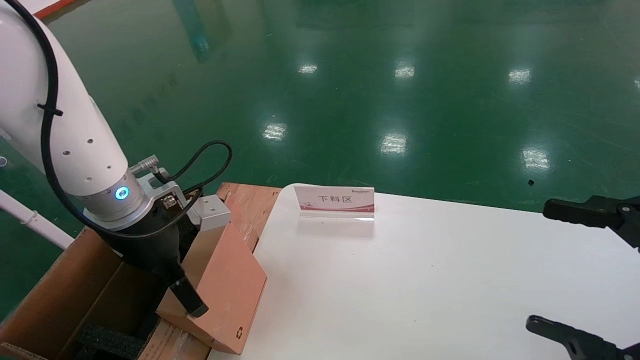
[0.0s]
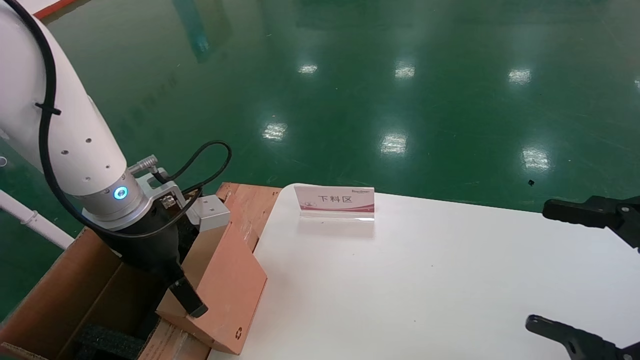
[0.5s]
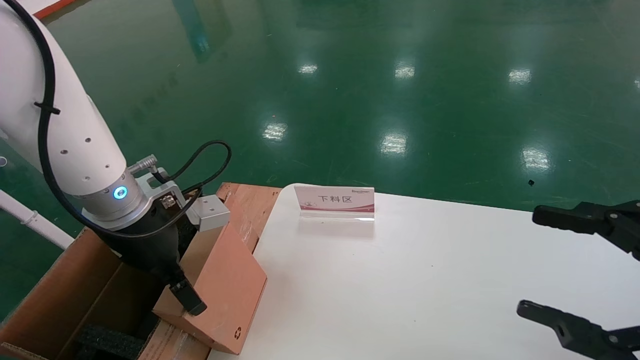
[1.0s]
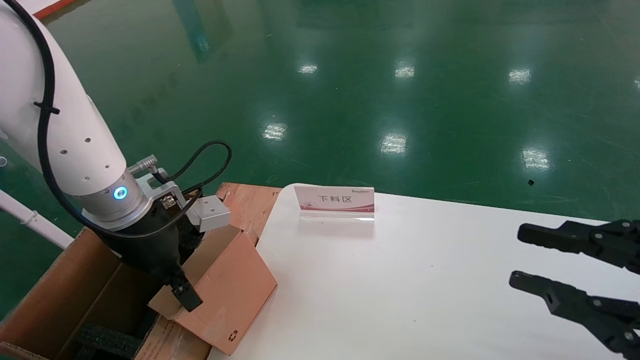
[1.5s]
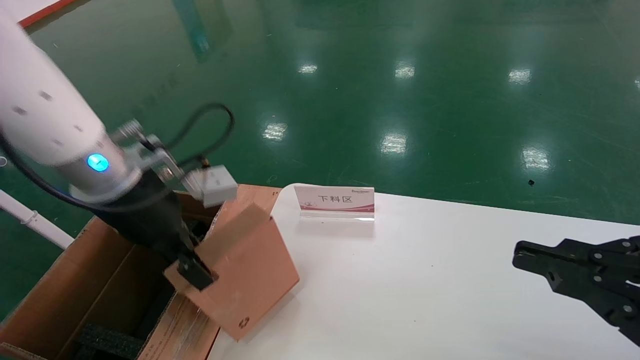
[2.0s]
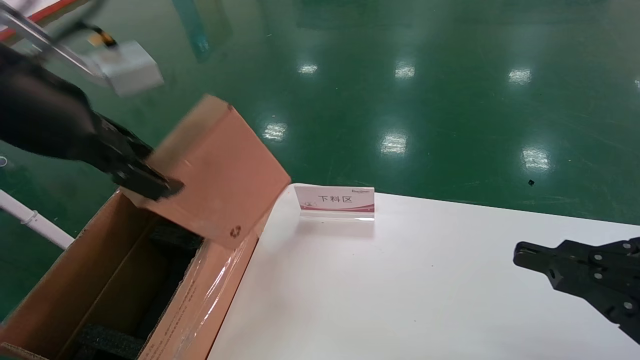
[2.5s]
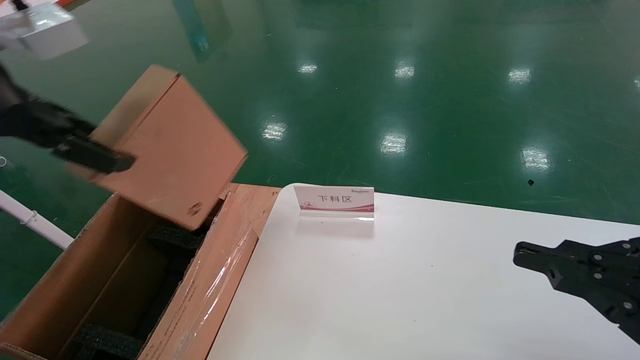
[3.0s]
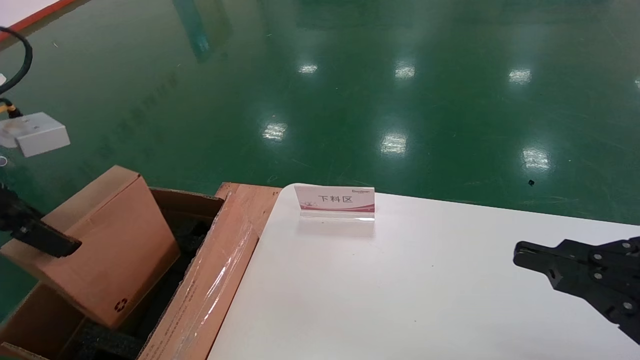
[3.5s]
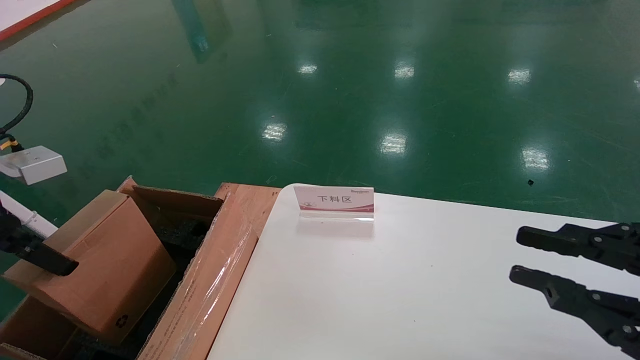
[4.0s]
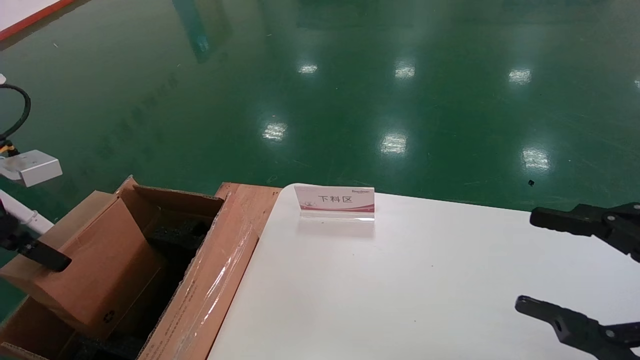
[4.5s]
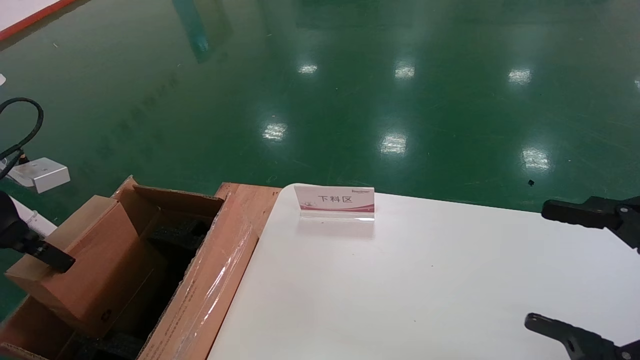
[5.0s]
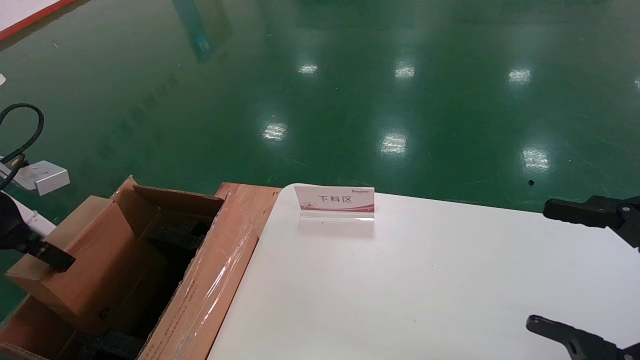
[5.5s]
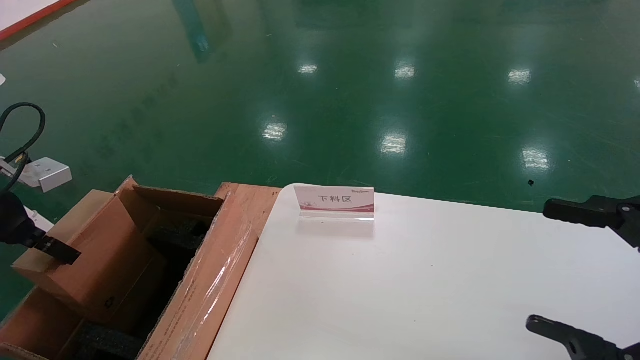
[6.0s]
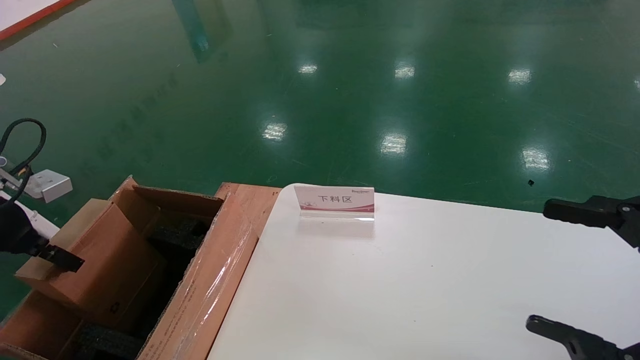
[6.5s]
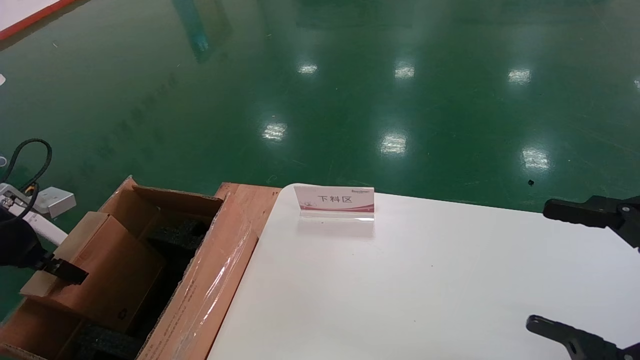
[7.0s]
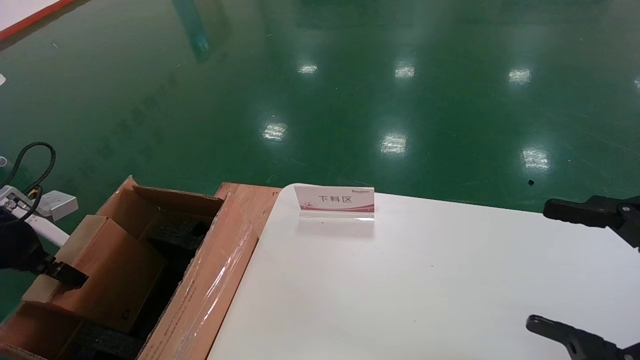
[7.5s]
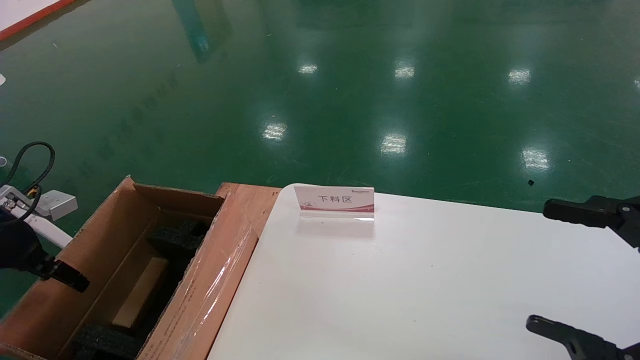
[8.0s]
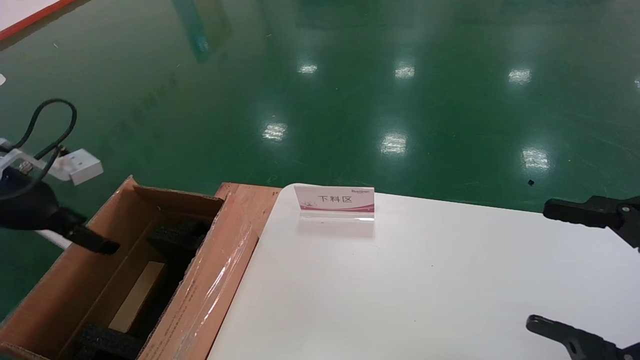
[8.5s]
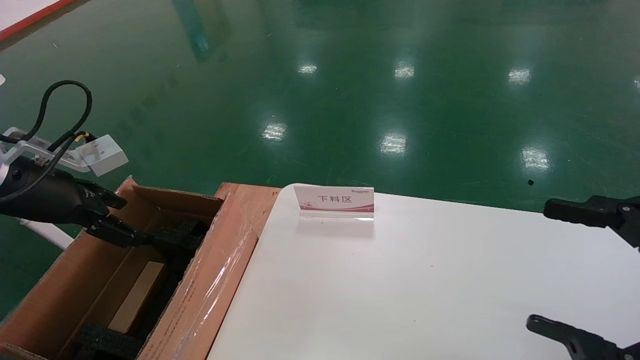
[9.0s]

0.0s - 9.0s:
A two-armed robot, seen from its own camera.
Task of the whole recording: pick up the small cardboard box and load it into the large cardboard box.
Step, 2.0s - 8.0s: Place the mouse and power cord box into the case.
0.0s - 2.0s: The left gripper is displaced upward by roughly 5 cm, and closes, while the right gripper closes its fingers.
2.0s - 4.5s: The left gripper goes some 20 cm to the left, while the right gripper opens up.
4.5s - 7.0s: The left gripper goes about 10 cm downward and to the left. The right gripper opens.
7.0s - 9.0s: The left gripper is displaced to the right and upward by about 10 cm, and opens.

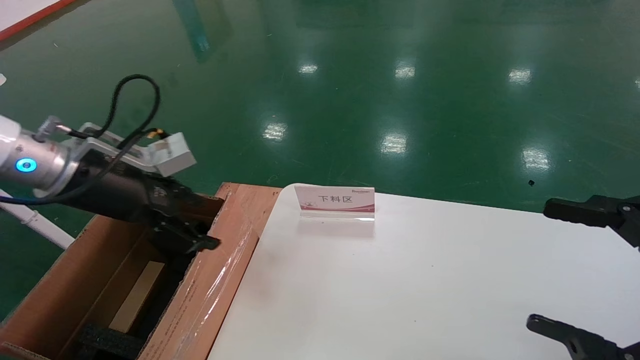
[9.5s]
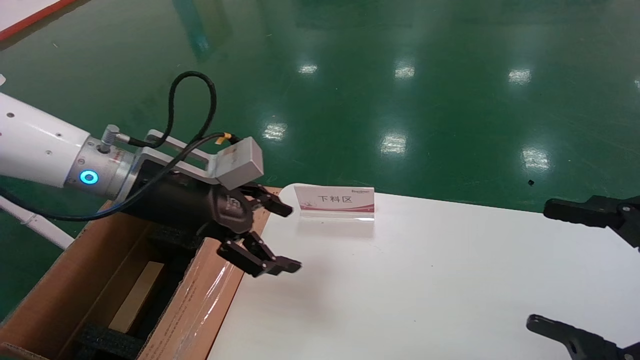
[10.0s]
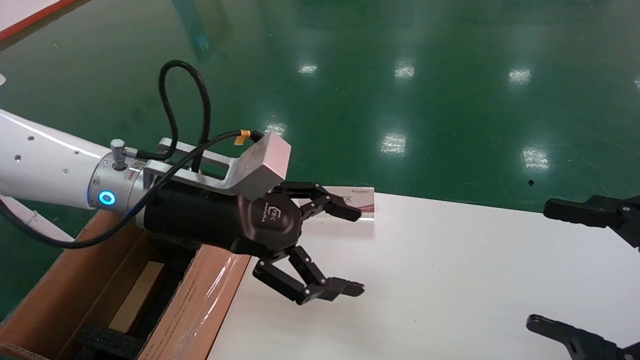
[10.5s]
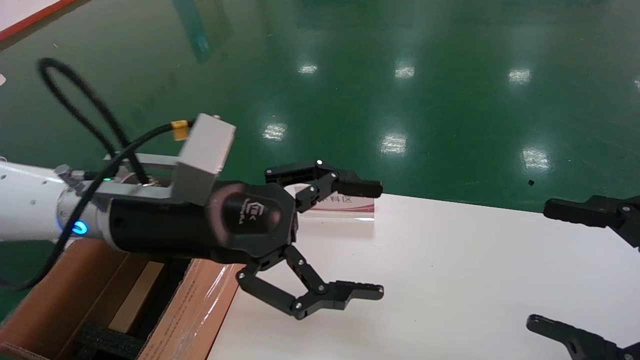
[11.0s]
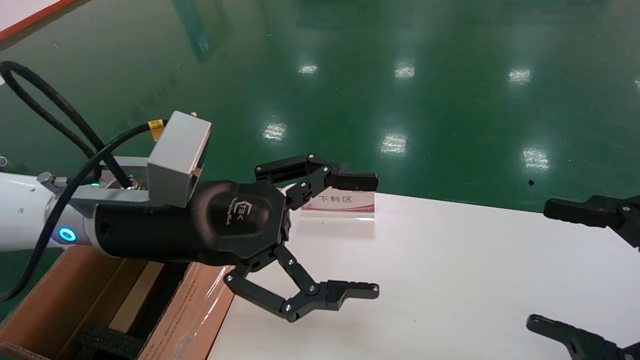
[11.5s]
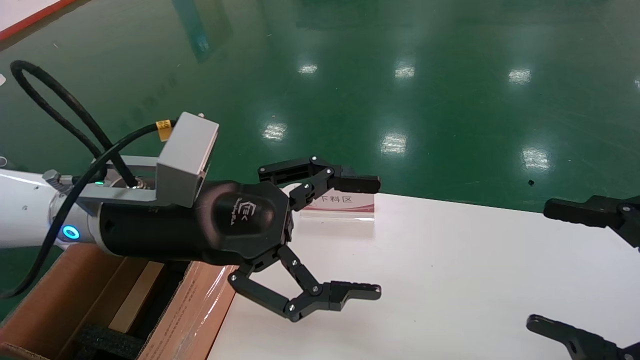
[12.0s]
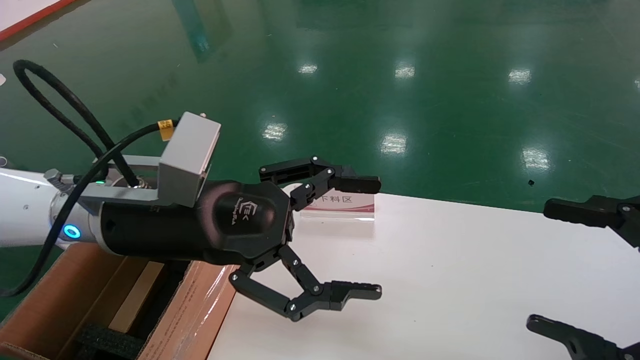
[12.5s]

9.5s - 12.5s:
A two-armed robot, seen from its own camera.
Task of the whole recording: pick up the small cardboard box and load it into the large cardboard box.
9.5s - 11.0s: The left gripper heads to the right, covering about 15 cm.
11.0s - 12.5s: The grippers stay close to where they were, moving slightly.
